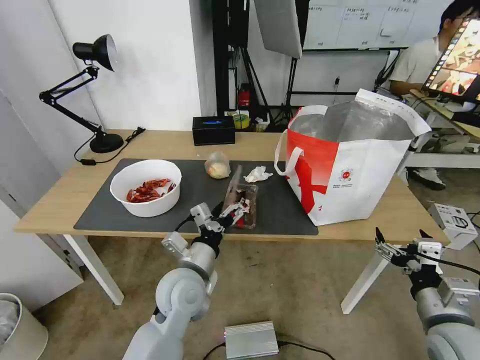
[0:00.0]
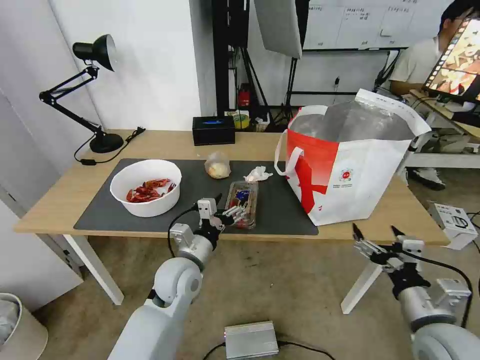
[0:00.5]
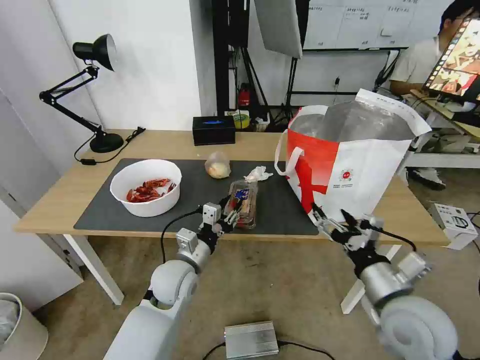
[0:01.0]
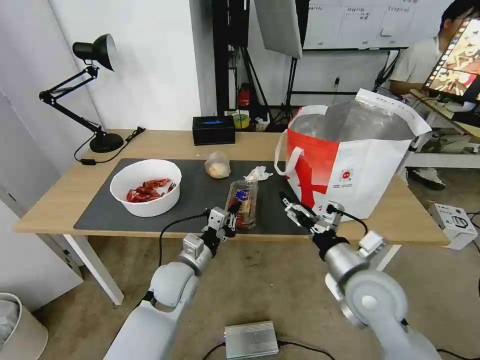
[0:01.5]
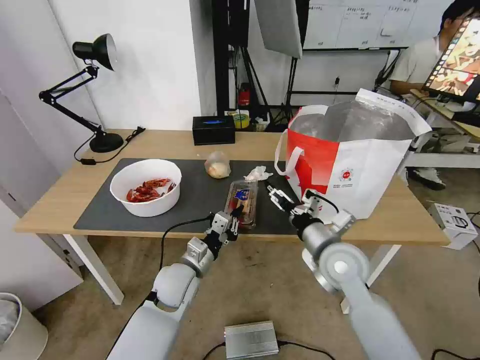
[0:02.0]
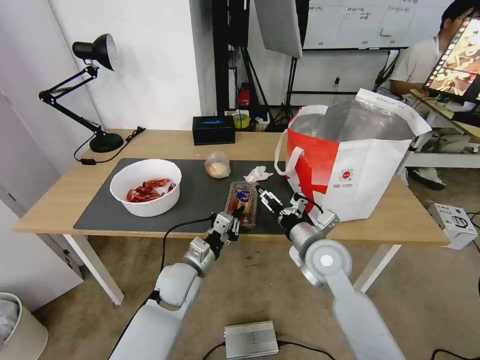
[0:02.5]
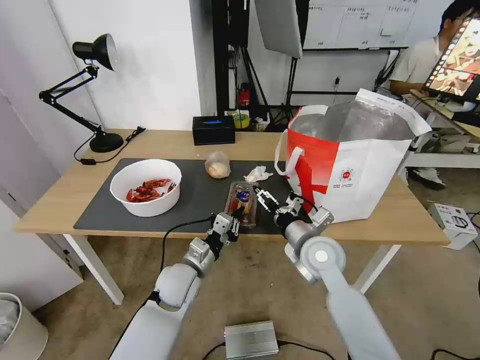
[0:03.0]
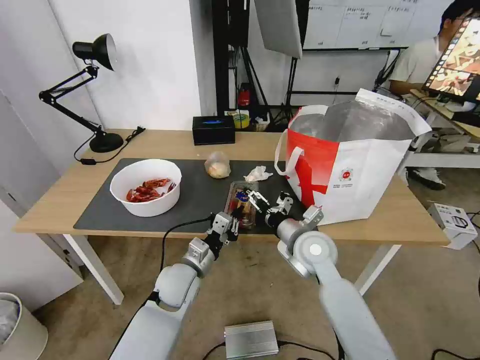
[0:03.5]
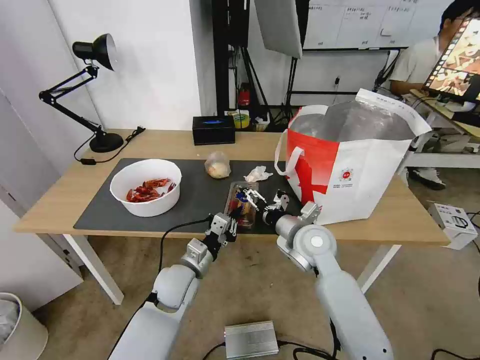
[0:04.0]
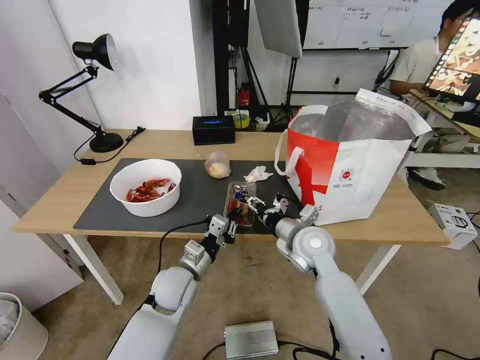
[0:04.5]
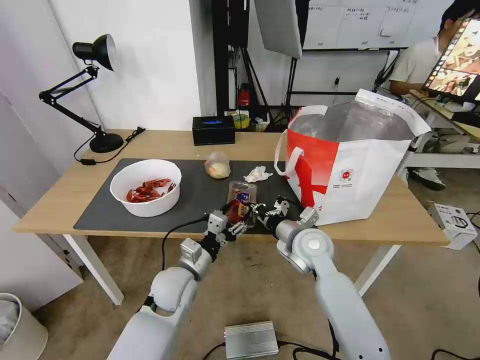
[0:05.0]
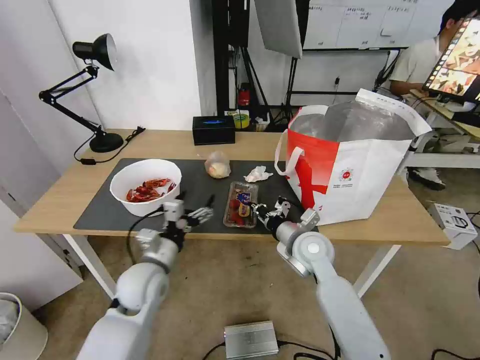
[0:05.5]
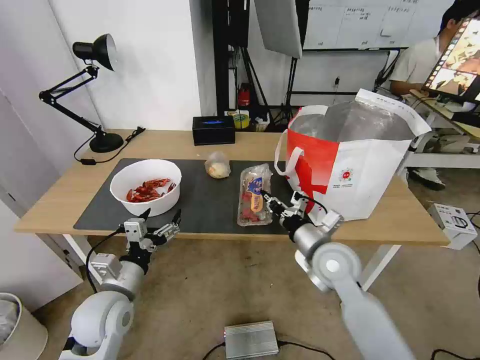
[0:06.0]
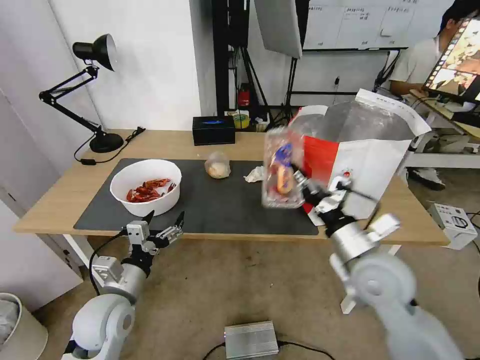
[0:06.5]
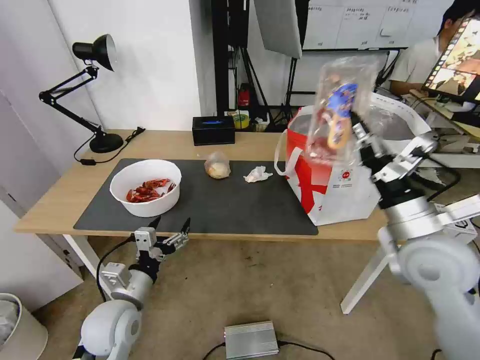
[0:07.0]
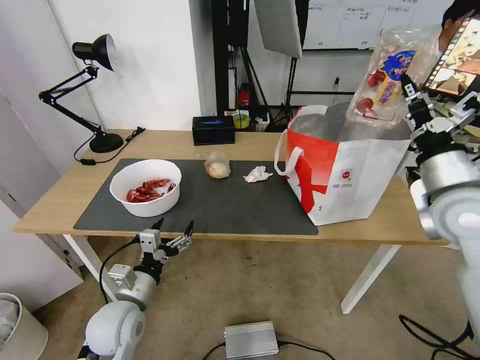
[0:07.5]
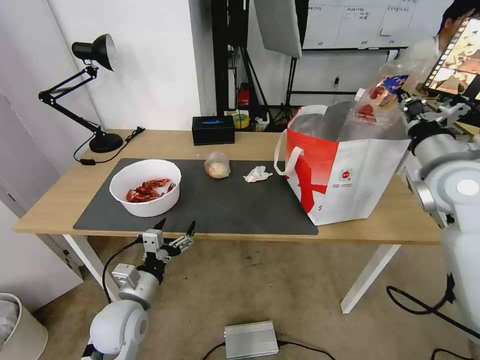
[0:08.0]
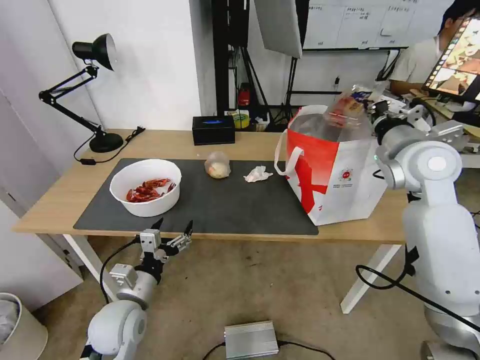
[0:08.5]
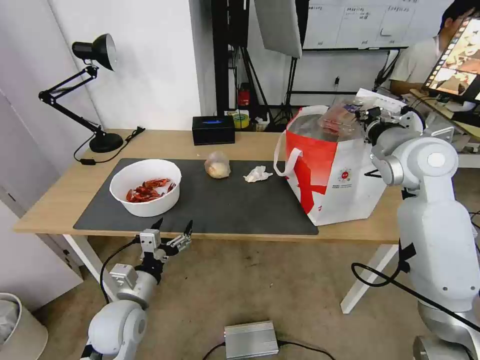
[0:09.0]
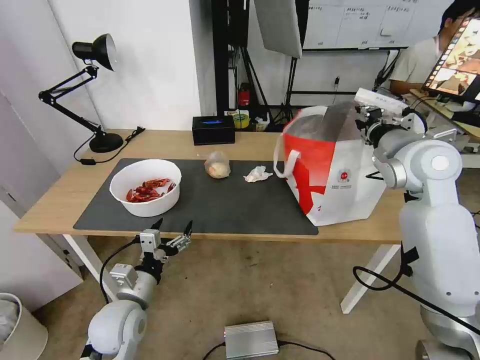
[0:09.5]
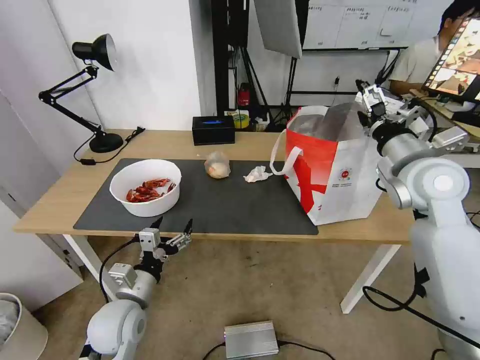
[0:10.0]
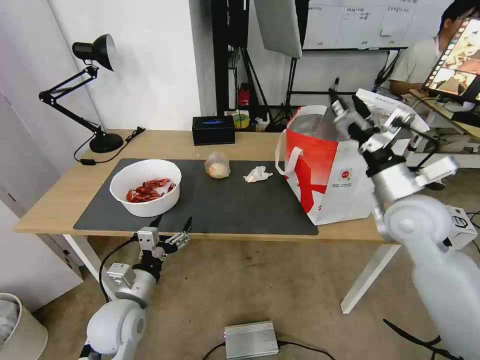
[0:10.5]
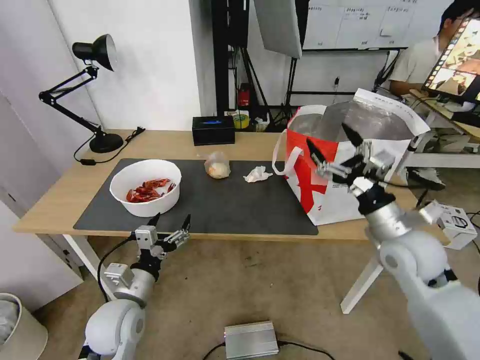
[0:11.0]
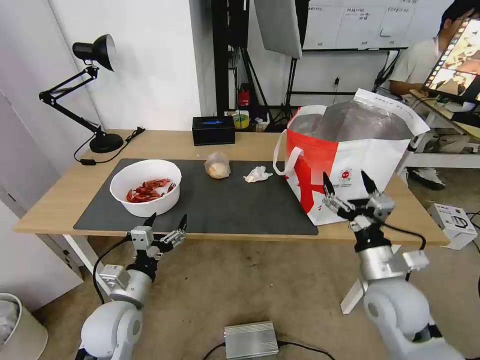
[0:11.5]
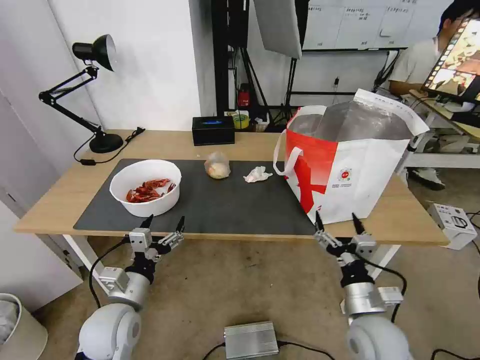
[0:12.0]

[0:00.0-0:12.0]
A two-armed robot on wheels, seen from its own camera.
Task of the whole recording: Pick up the trash from the table and place it into the takeout bag.
0:00.0 to 0:02.0: The right gripper goes roughly 20 cm to the left and forward. Meanwhile the left gripper travels downward by about 5 cm, and closes.
0:02.0 to 0:04.0: The right gripper shifts roughly 5 cm forward.
0:04.0 to 0:06.0: The right gripper shifts by some 5 cm, and closes up; the left gripper goes approximately 15 cm to the left, backward and upward, and opens up.
0:06.0 to 0:08.0: The right gripper is displaced upward and to the right by roughly 25 cm.
0:08.0 to 0:10.0: The right gripper opens up.
0:10.0 to 0:12.0: The right gripper moves downward and backward, about 30 cm.

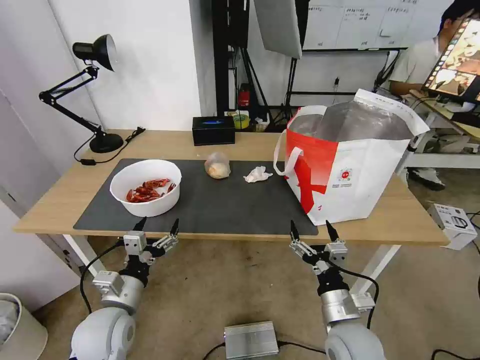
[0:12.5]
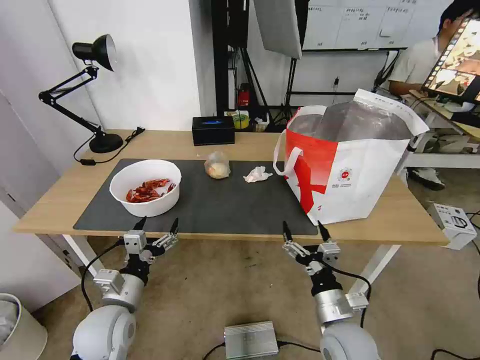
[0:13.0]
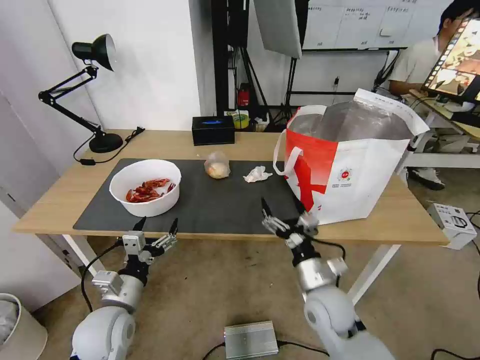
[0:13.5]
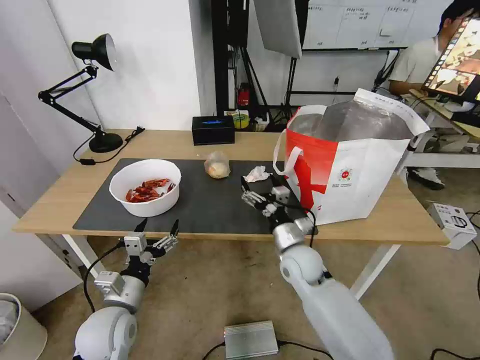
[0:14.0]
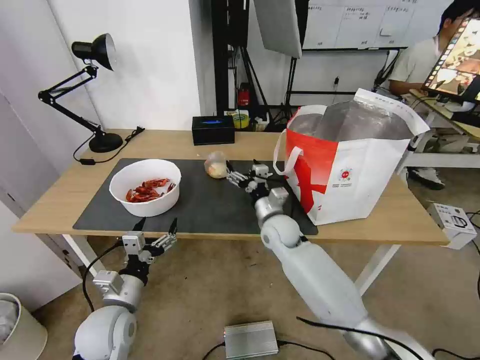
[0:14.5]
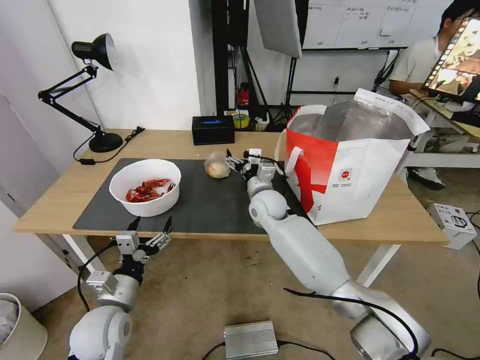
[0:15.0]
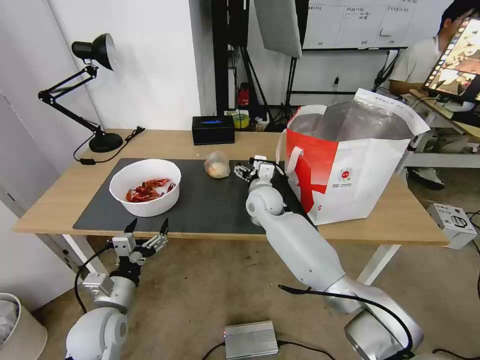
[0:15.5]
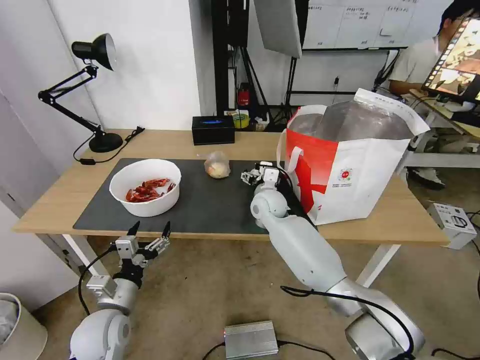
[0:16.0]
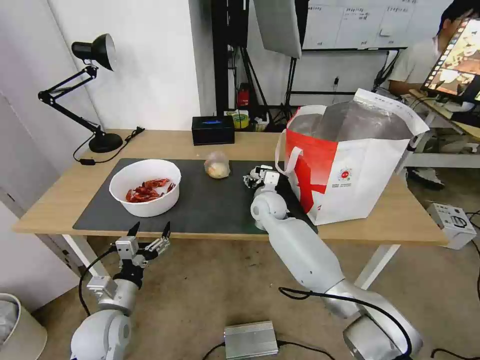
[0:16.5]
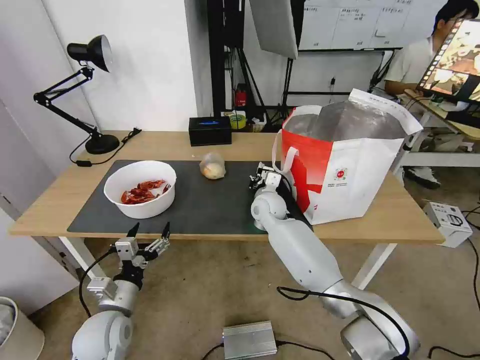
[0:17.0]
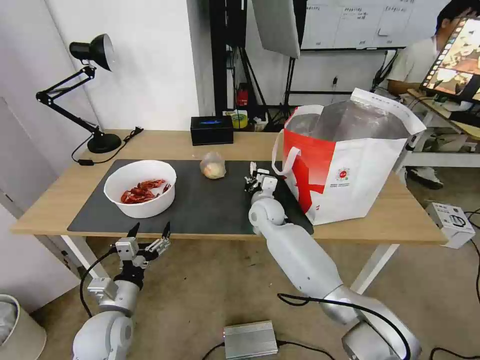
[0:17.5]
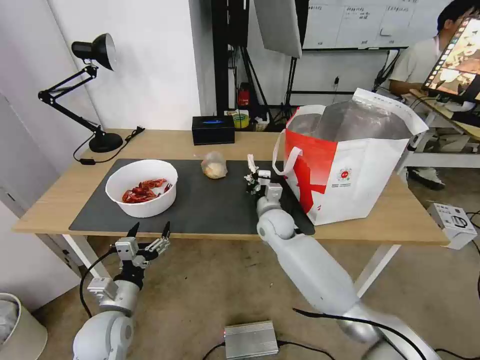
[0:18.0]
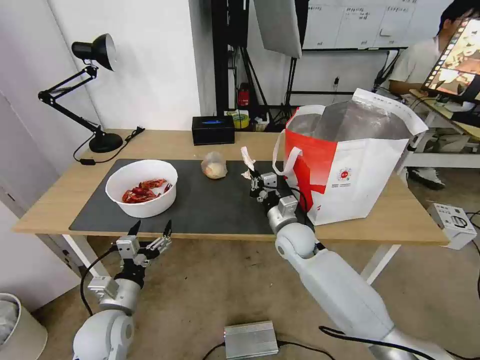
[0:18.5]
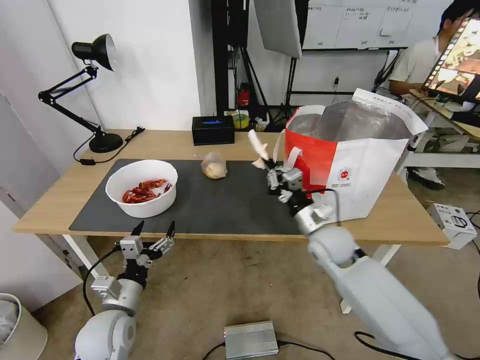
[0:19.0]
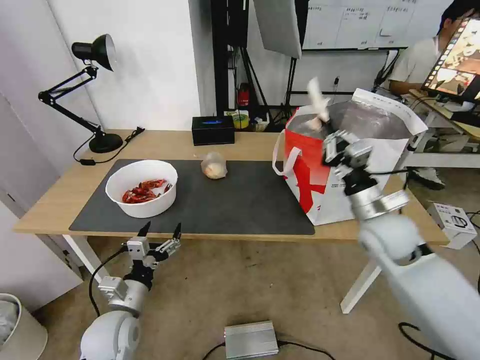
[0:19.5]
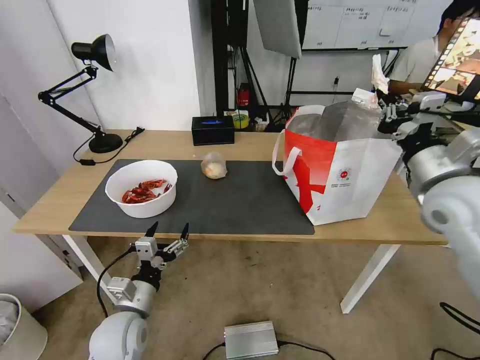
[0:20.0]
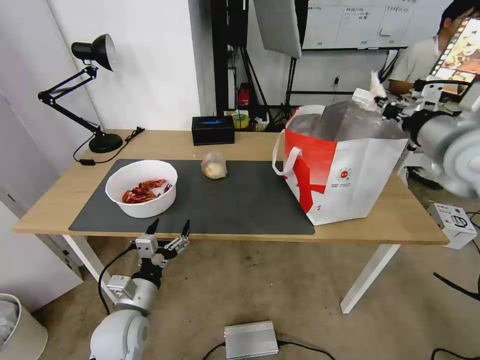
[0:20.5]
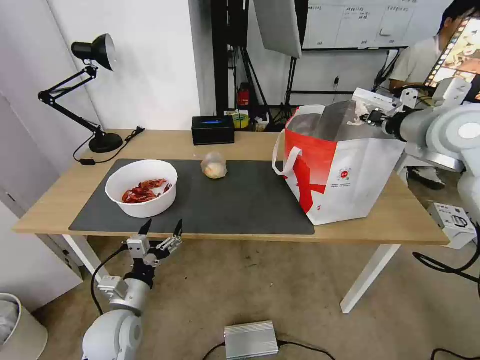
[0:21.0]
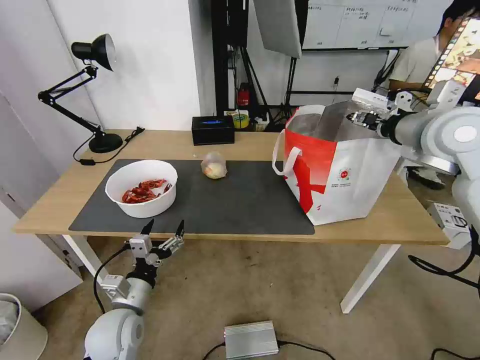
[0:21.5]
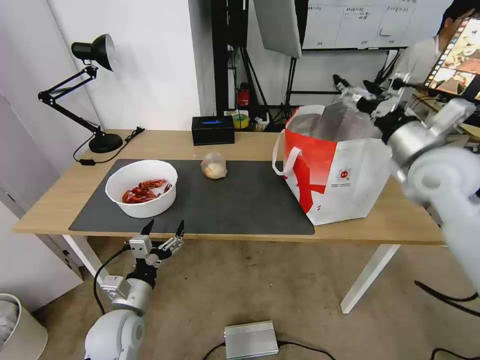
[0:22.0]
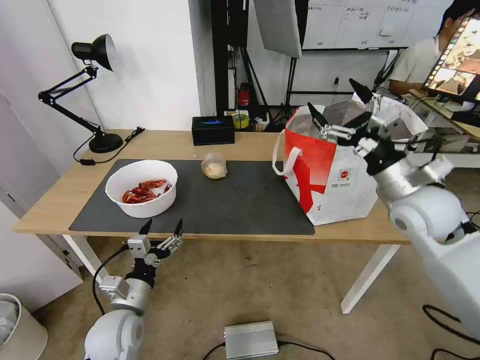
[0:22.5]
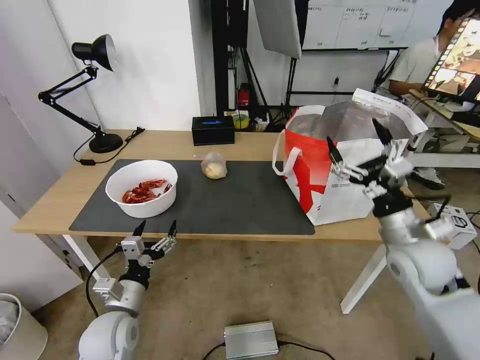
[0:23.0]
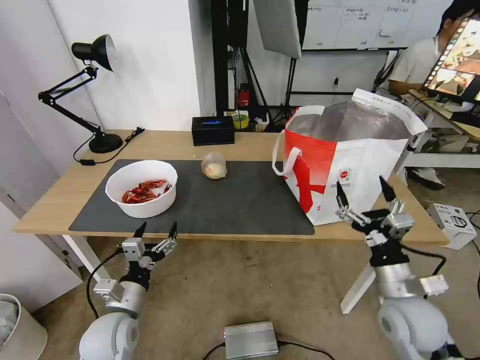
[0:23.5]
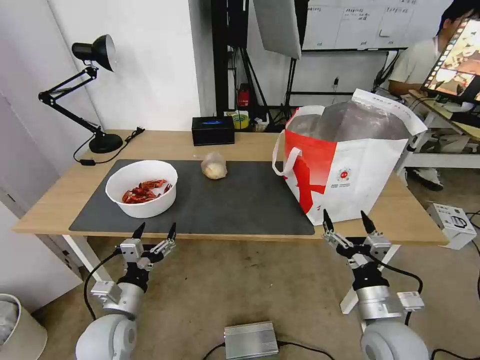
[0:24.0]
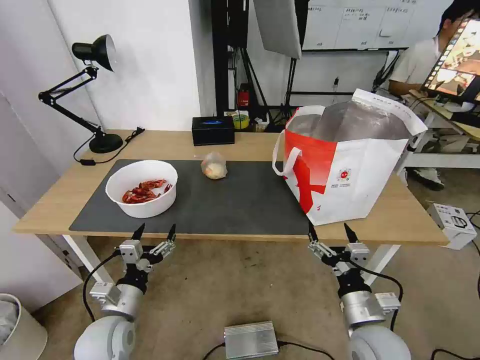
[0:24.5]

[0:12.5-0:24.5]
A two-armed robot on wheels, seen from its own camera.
Task of the whole recording: Pick up the trash from the table and place it into the takeout bag.
0:12.5 to 0:14.5: The right gripper heads forward and to the left, covering some 30 cm.
0:14.5 to 0:16.5: The right gripper goes approximately 5 cm forward.
0:16.5 to 0:18.5: The right gripper shifts roughly 10 cm backward and to the right, and closes up.
0:18.5 to 0:20.5: The right gripper travels upward and to the right by roughly 40 cm.
0:20.5 to 0:22.5: The right gripper heads downward, covering roughly 10 cm, and opens.
0:22.5 to 0:24.5: The right gripper goes approximately 25 cm downward and backward.

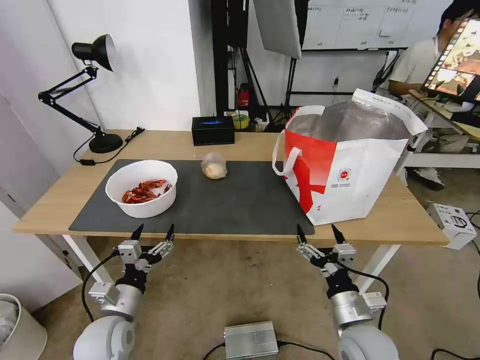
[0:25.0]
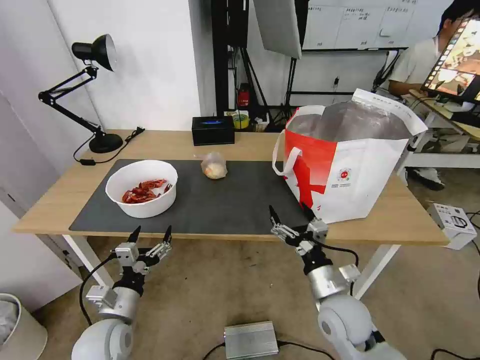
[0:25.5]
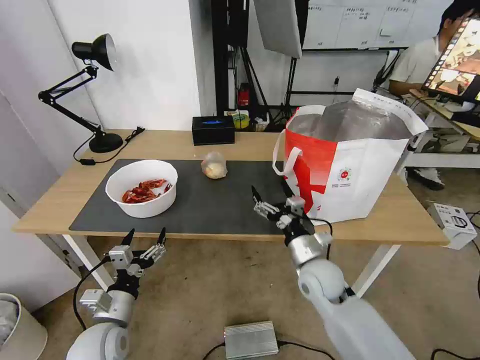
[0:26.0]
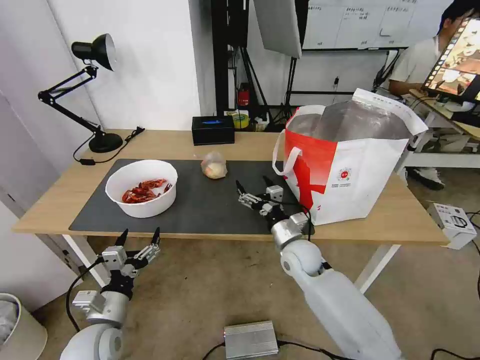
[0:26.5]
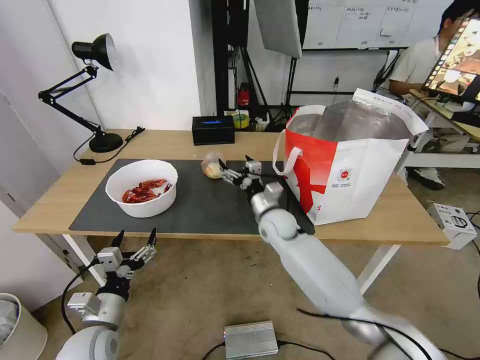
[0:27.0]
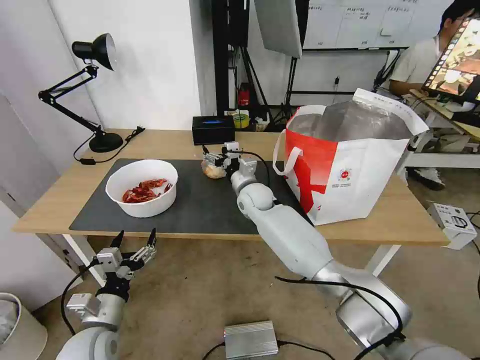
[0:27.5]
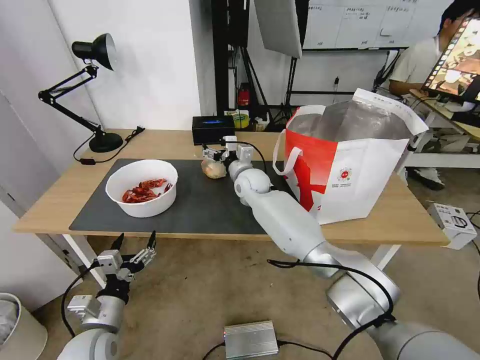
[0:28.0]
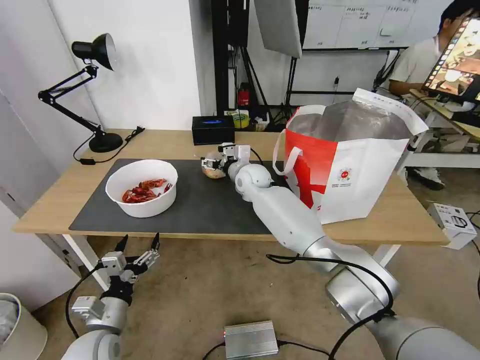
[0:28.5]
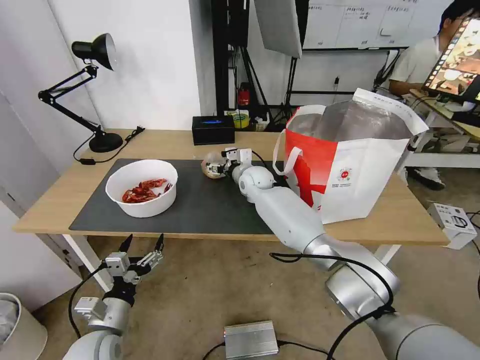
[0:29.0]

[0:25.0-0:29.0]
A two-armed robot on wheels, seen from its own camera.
Task of the whole recording: Pick up the trash from the table and place it into the takeout bag.
0:25.0 to 0:27.0: The right gripper is displaced forward and to the left by some 30 cm.
0:27.0 to 0:29.0: The right gripper is displaced forward and to the left by roughly 15 cm.
